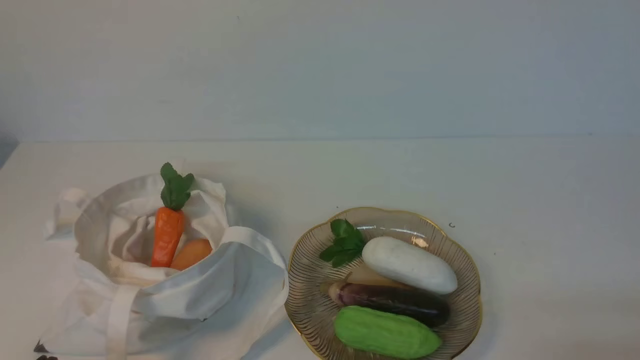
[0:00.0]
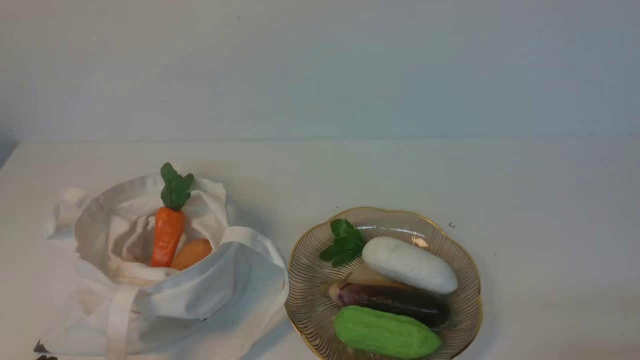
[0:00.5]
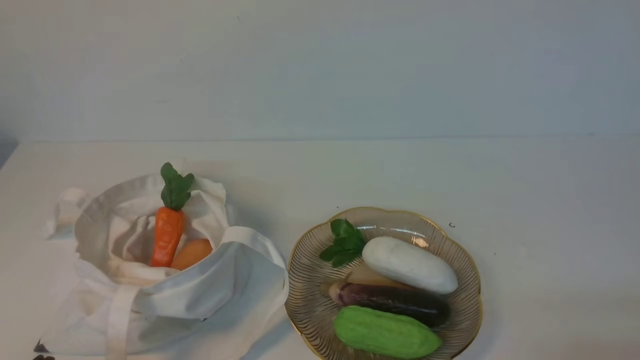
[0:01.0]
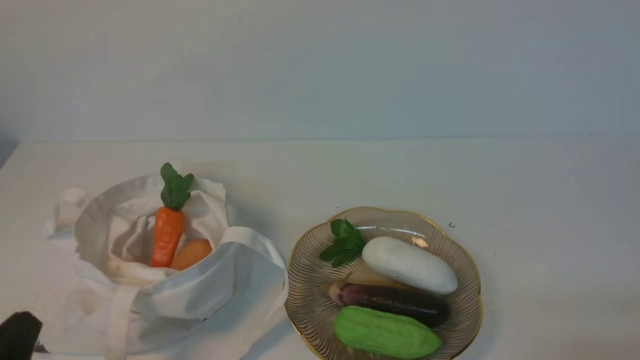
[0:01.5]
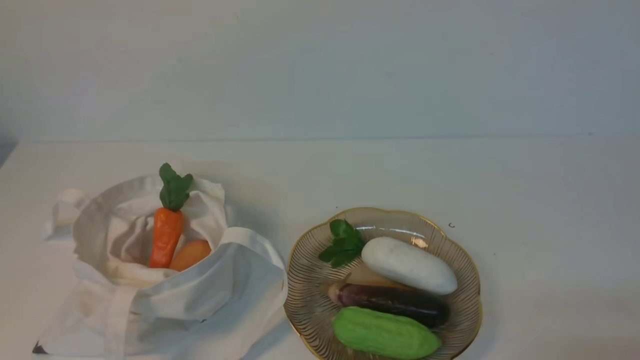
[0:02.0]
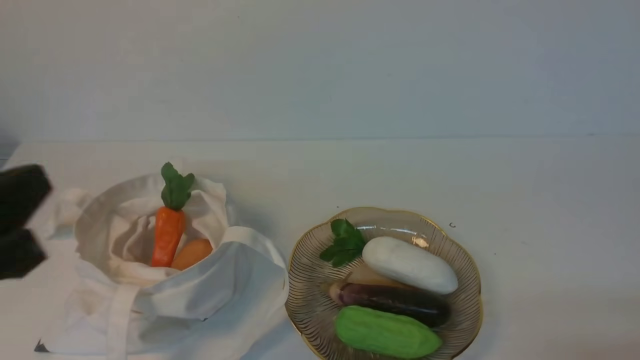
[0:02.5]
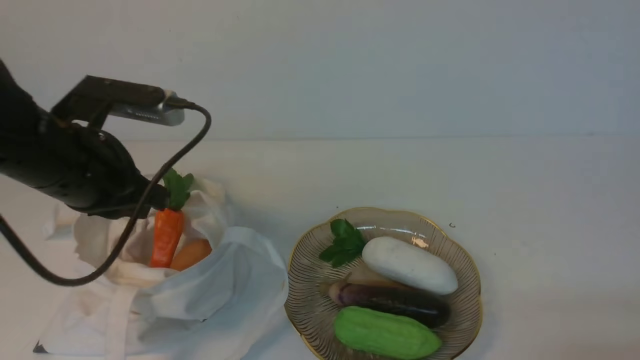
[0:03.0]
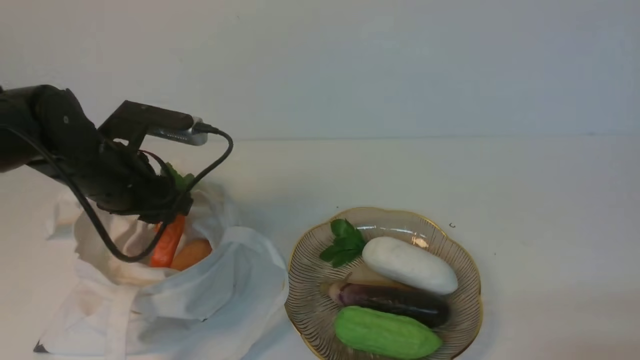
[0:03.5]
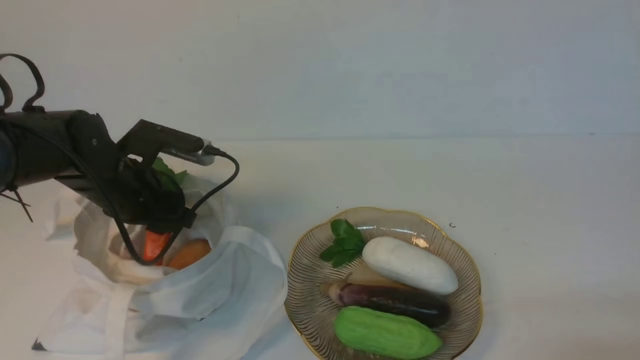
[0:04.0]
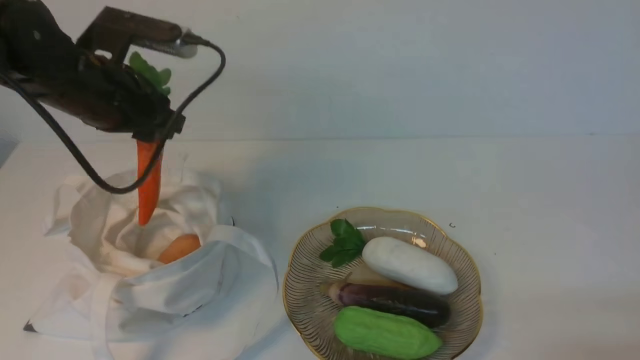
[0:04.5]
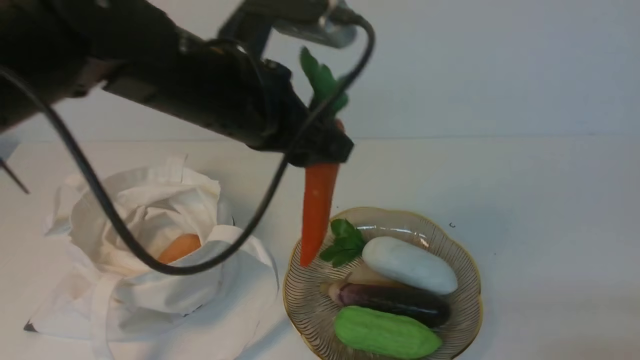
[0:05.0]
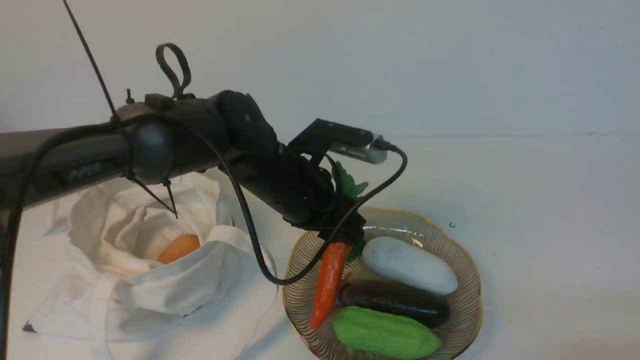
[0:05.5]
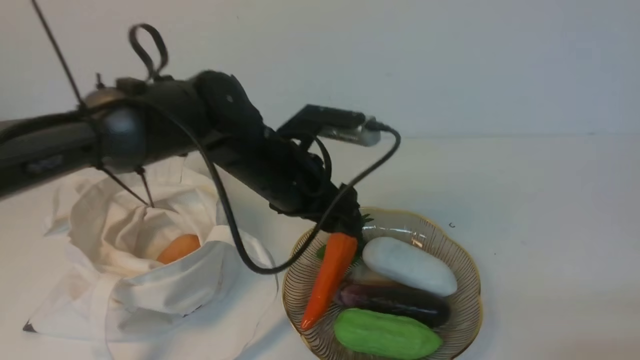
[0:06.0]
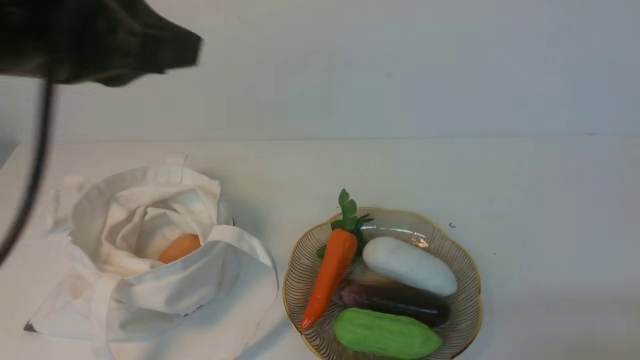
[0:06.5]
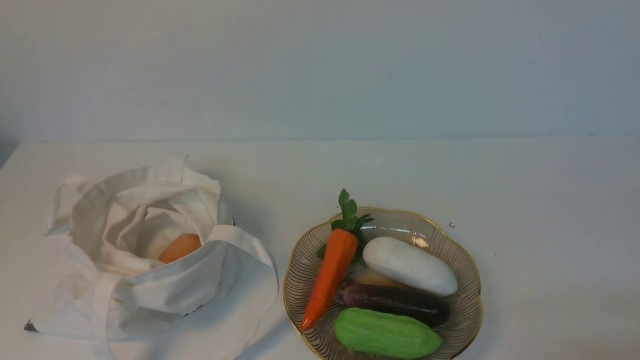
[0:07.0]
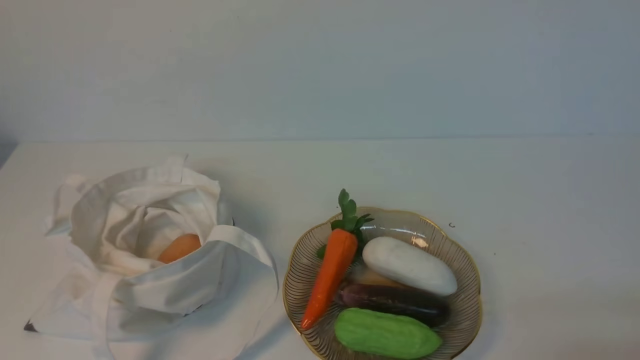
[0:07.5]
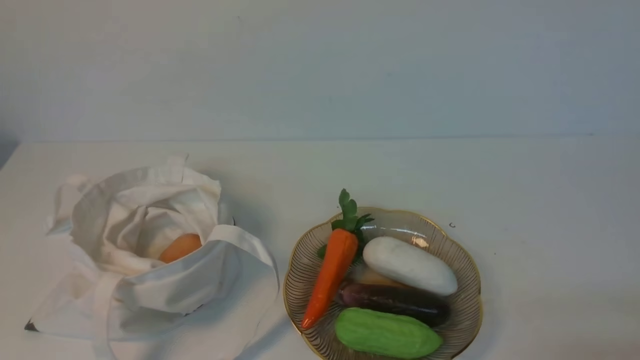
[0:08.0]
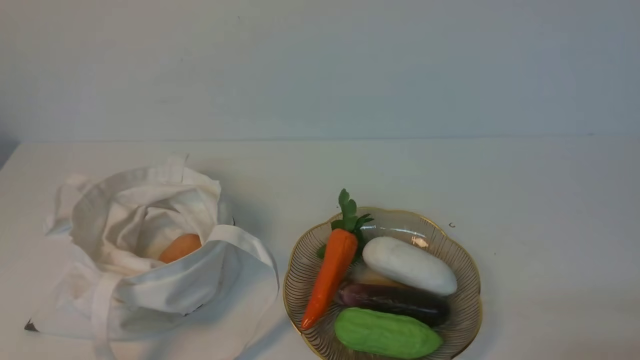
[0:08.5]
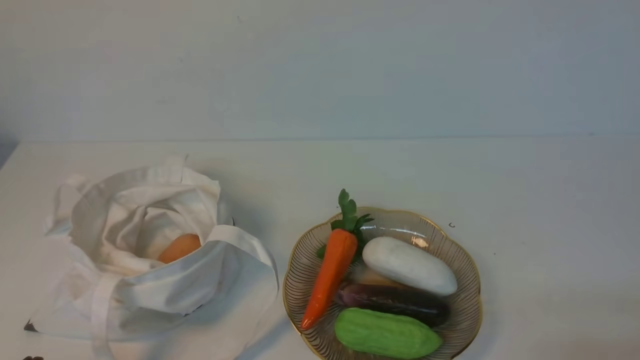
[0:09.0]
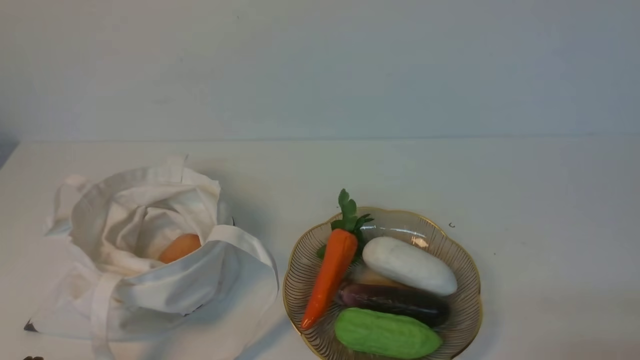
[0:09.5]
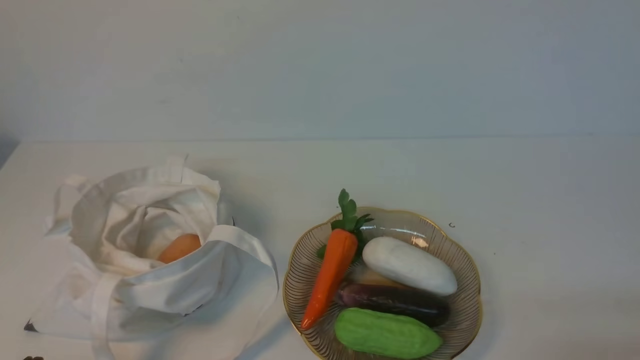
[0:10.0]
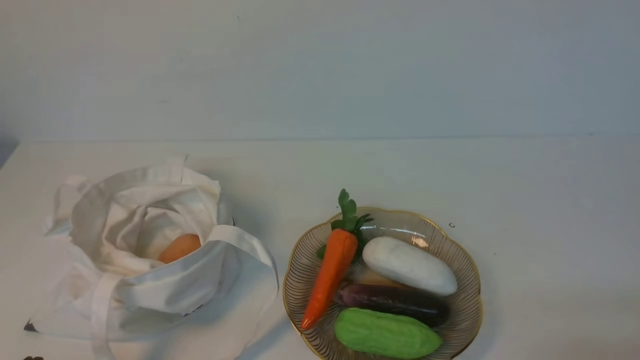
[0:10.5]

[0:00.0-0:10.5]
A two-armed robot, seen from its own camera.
Task of the whole recording: take vegetables from cloth bag on white table place on plate.
Step, 0:00.0 to 0:04.0: Grasp the carrot with left gripper.
Step, 0:04.5 to 0:05.5: Place the carrot on the plate with left gripper.
0:02.0 to 0:04.0: The left gripper is displaced forward by about 30 cm, and opens up.
0:04.0 to 0:06.5: The left gripper moves up and down over about 25 cm, changing direction 2 times, and closes up.
0:06.5 to 0:08.5: The left gripper heads downward and backward, covering approximately 30 cm.
0:08.5 to 0:10.5: Both grippers stay put.

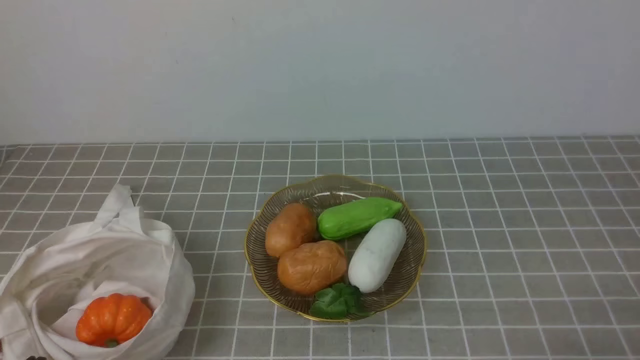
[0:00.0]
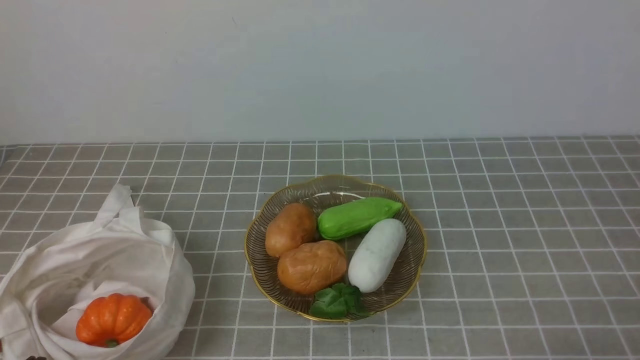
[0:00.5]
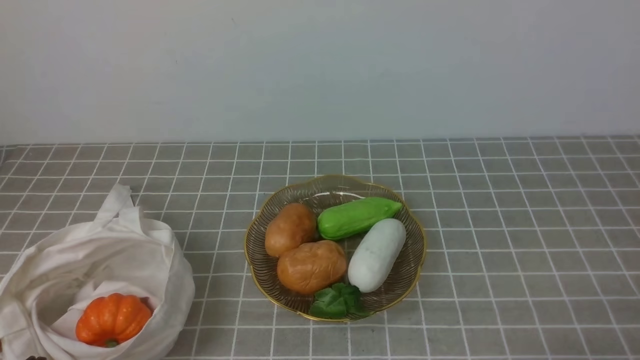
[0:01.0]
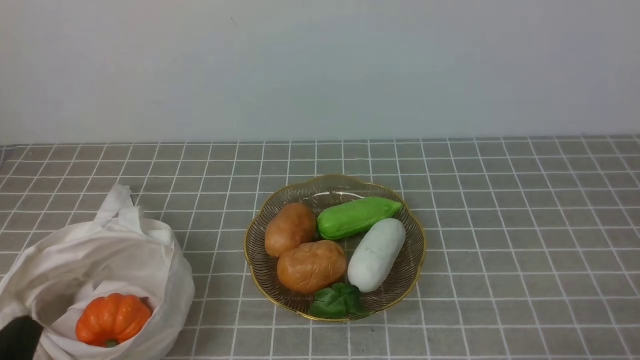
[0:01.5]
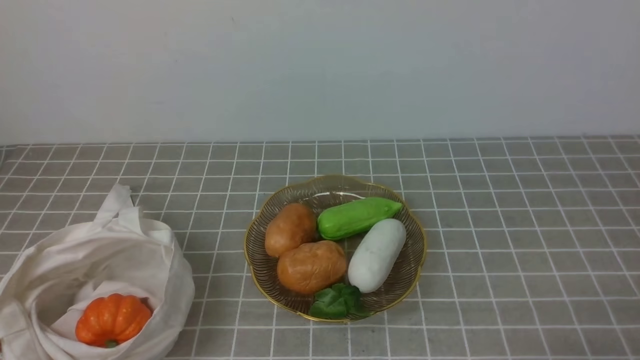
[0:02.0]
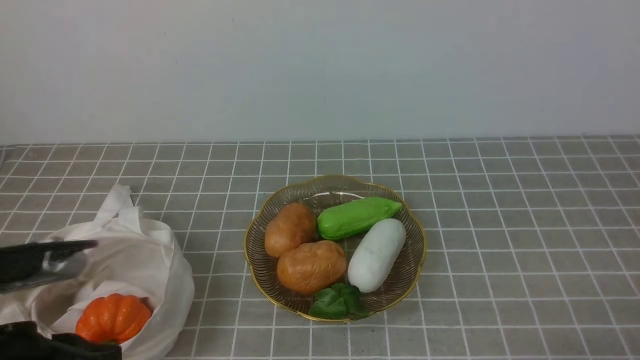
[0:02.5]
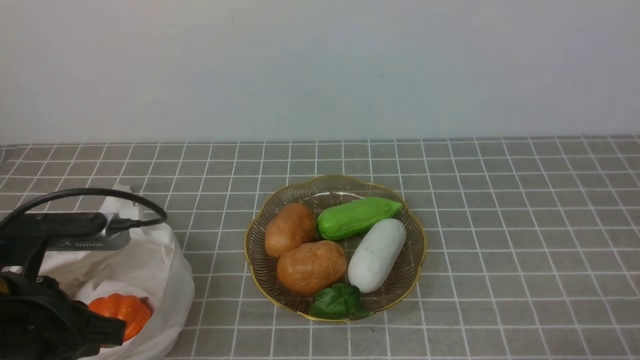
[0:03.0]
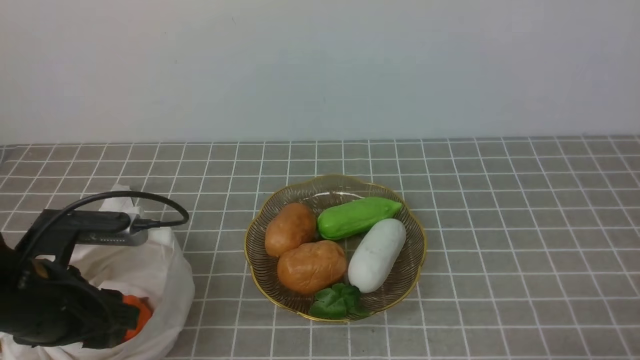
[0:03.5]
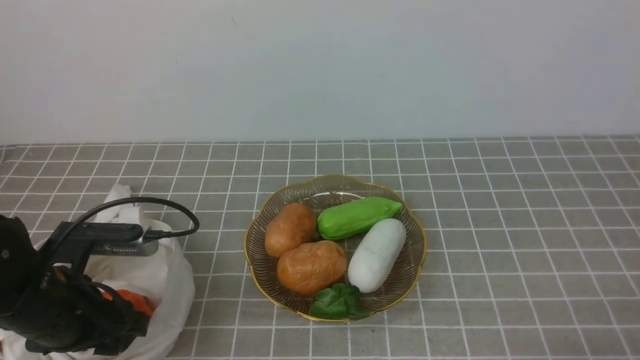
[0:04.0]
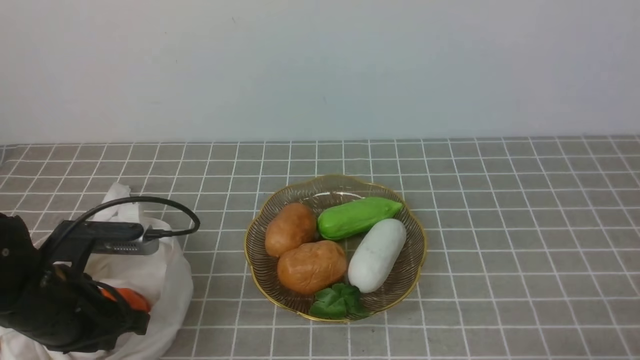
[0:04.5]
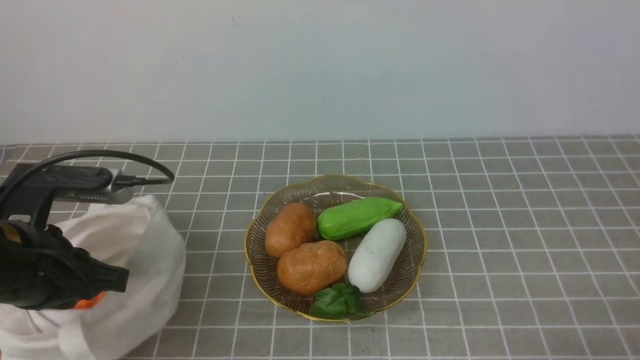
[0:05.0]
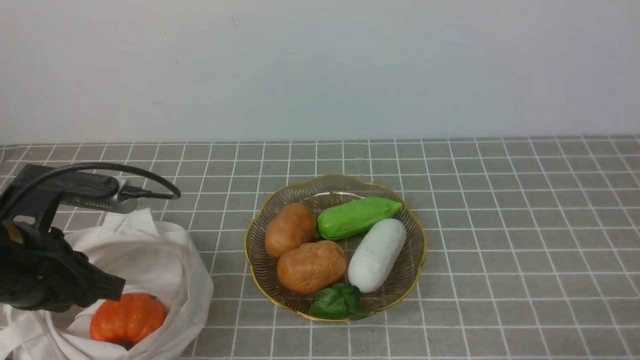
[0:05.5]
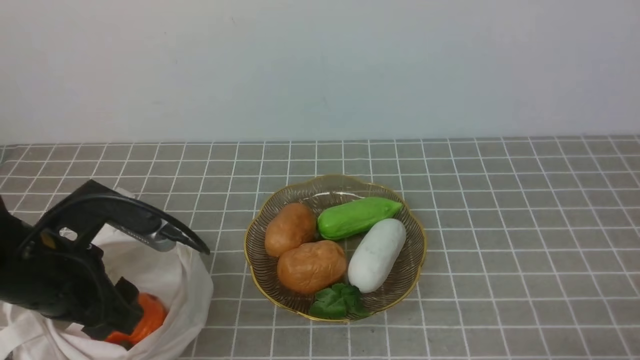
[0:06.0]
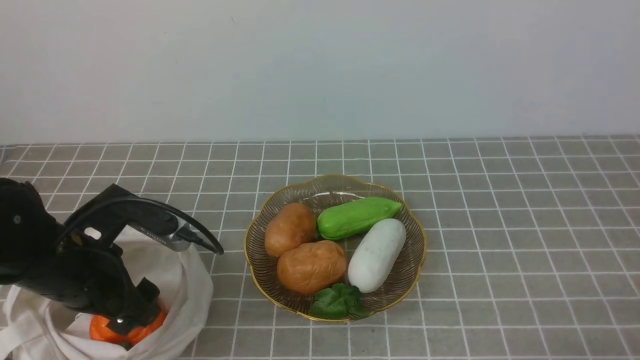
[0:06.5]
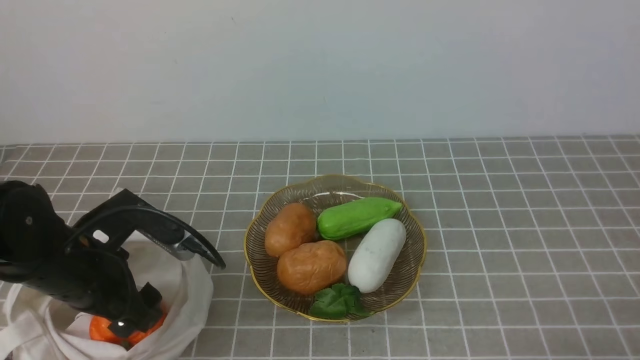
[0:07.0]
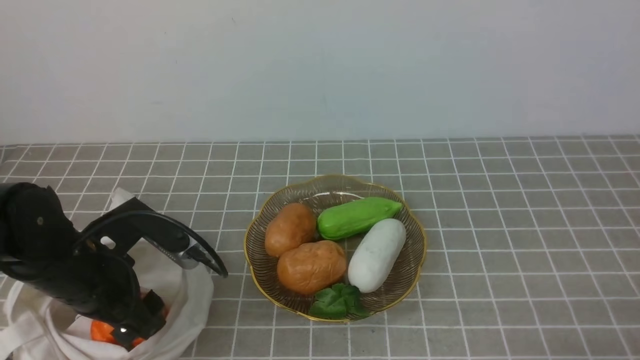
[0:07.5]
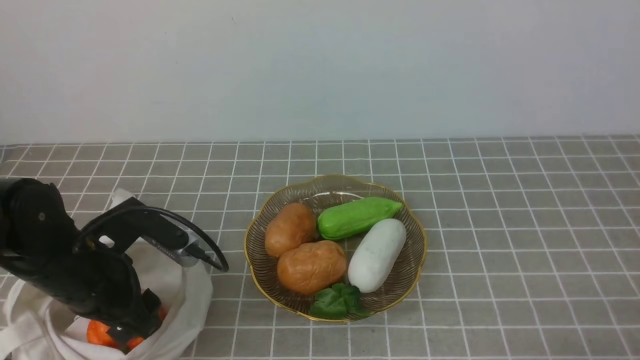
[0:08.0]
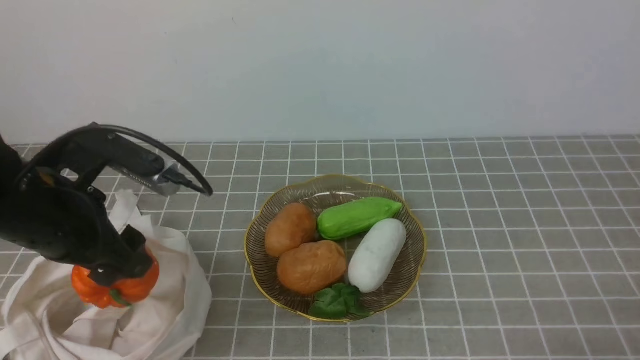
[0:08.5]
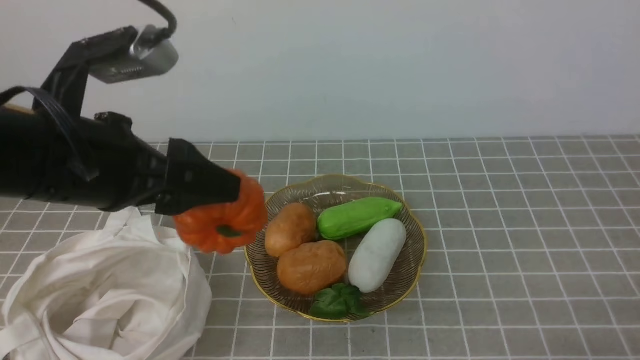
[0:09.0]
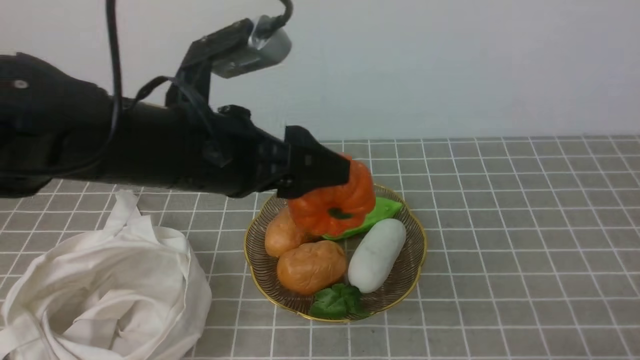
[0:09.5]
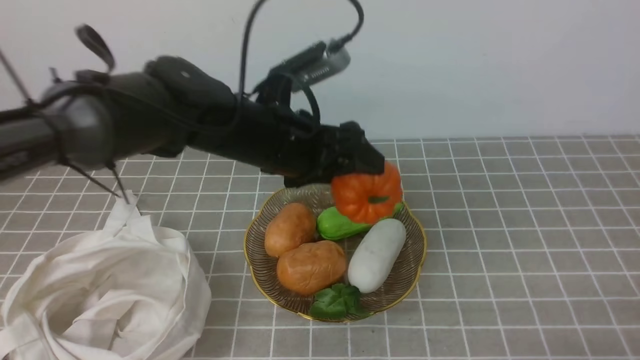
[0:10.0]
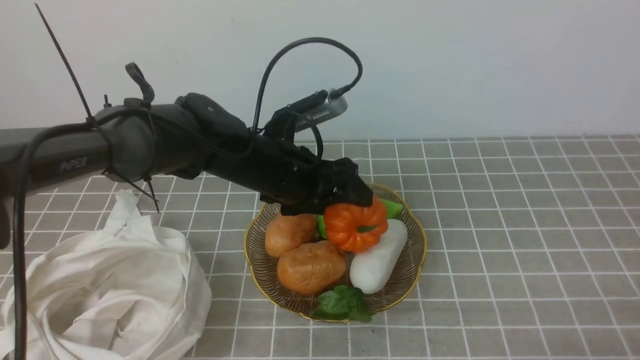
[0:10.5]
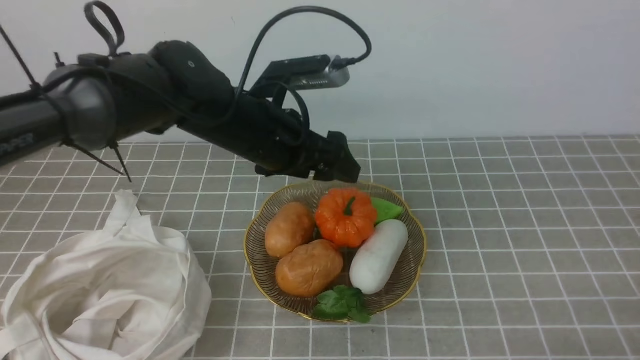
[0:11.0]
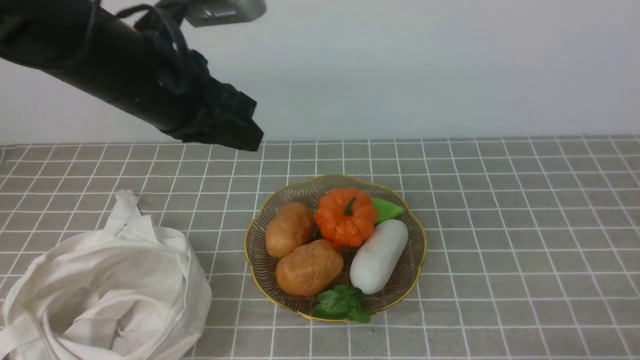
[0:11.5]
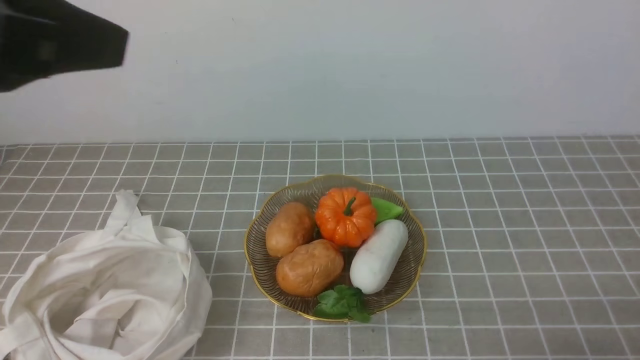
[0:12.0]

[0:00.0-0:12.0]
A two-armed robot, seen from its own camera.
Task of the whole recording: take vegetables from bag on grey coffee tablecloth place on plate.
Step, 0:00.0 to 0:07.5: Grasp the pumpkin with left gripper.
Step, 0:08.0 to 0:11.0: Place the pumpkin on the plate with left gripper.
0:02.0 to 0:04.0: The left gripper moves forward, about 15 cm, and opens its fingers.
0:04.0 to 0:06.0: The left gripper goes roughly 5 cm upward, and closes and opens again.
0:06.0 to 0:08.0: The left gripper ends up roughly 5 cm from where it was.
0:08.0 to 0:10.0: The left gripper moves to the right, upward and forward, about 20 cm.
0:10.0 to 0:12.0: The left gripper moves upward, backward and to the left, roughly 25 cm, and closes.
